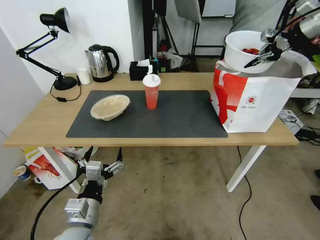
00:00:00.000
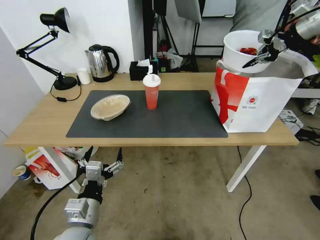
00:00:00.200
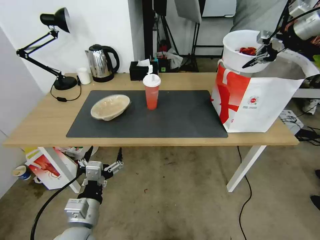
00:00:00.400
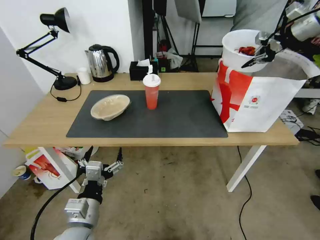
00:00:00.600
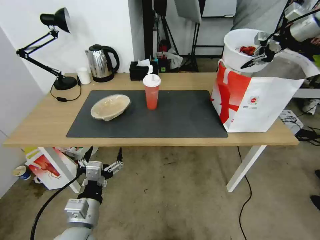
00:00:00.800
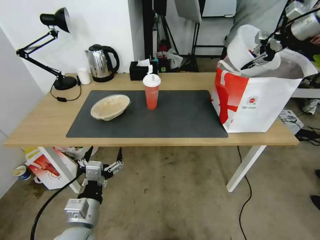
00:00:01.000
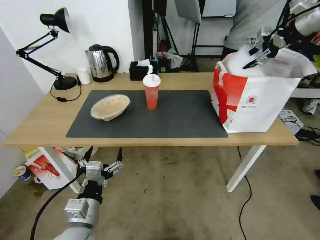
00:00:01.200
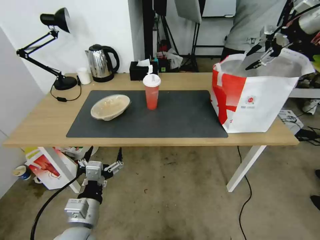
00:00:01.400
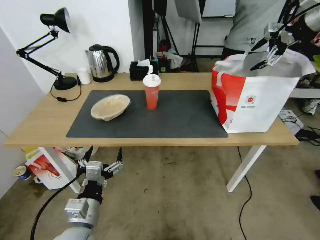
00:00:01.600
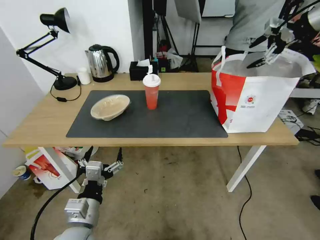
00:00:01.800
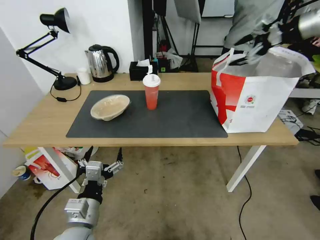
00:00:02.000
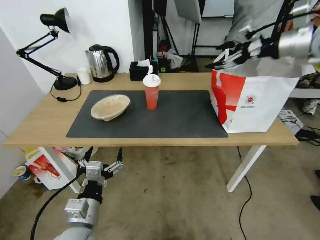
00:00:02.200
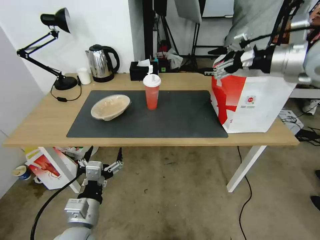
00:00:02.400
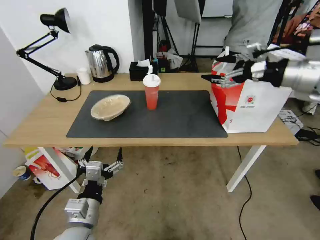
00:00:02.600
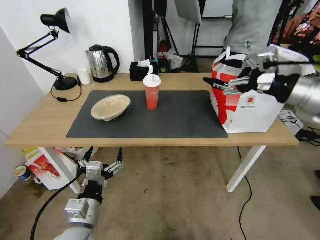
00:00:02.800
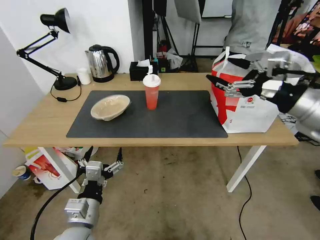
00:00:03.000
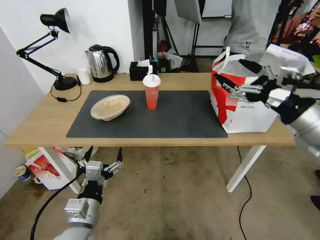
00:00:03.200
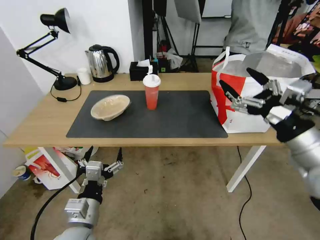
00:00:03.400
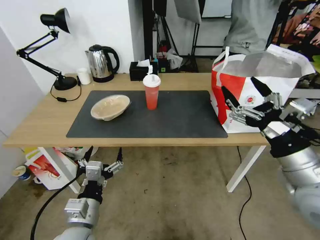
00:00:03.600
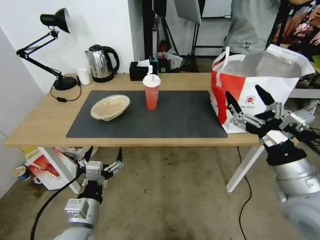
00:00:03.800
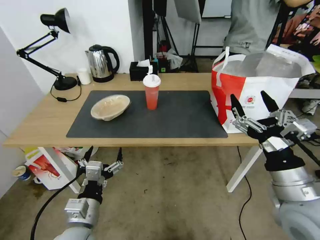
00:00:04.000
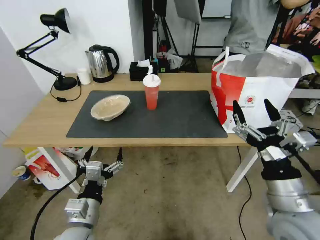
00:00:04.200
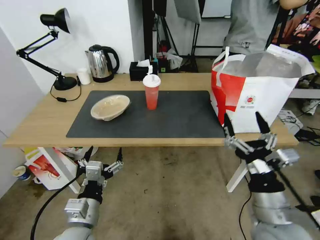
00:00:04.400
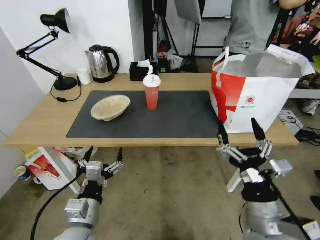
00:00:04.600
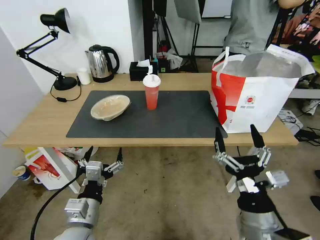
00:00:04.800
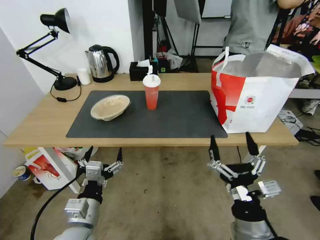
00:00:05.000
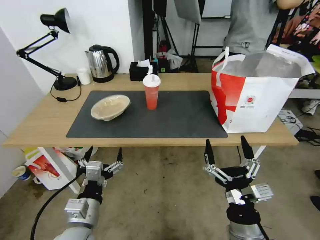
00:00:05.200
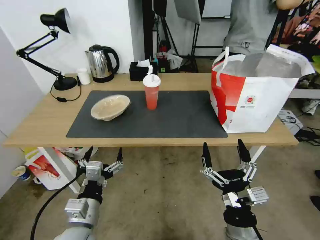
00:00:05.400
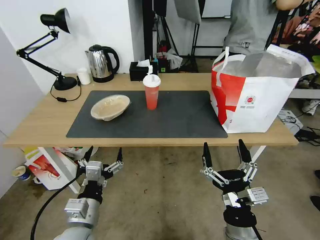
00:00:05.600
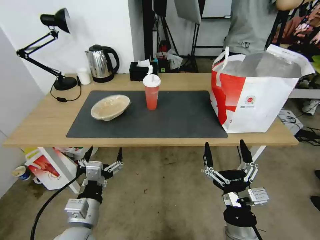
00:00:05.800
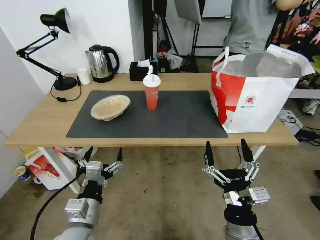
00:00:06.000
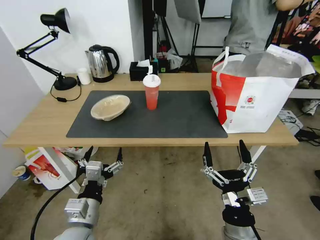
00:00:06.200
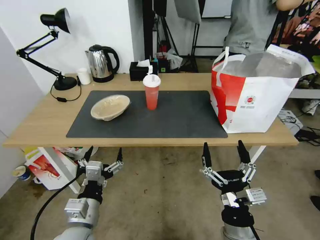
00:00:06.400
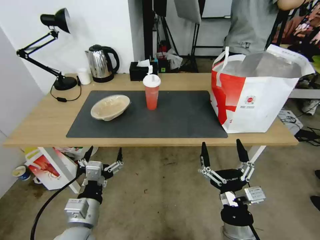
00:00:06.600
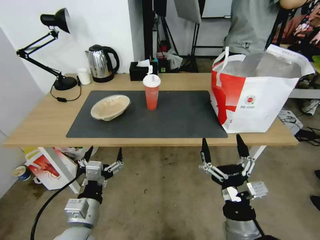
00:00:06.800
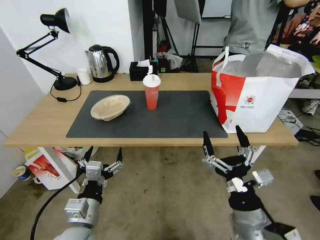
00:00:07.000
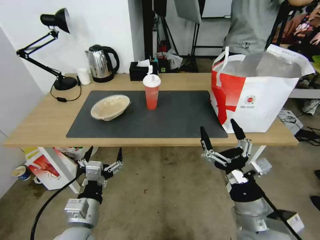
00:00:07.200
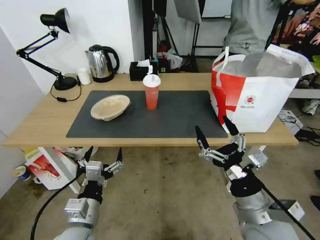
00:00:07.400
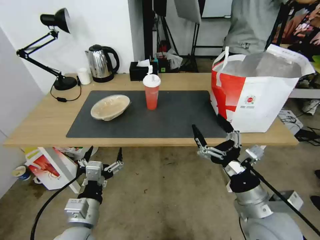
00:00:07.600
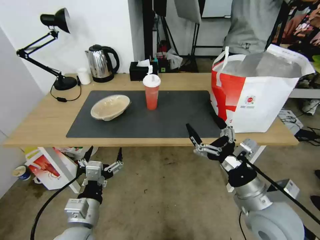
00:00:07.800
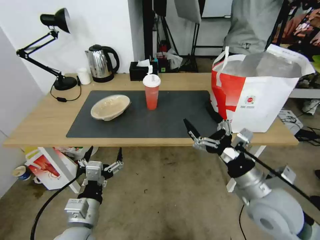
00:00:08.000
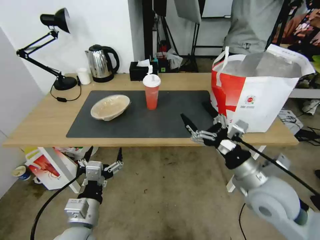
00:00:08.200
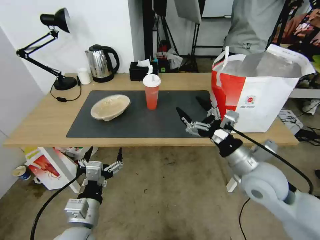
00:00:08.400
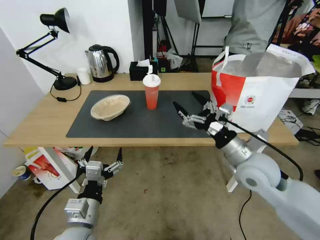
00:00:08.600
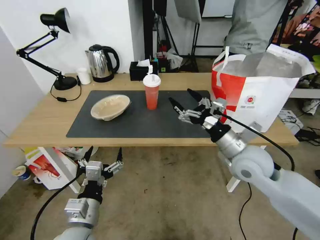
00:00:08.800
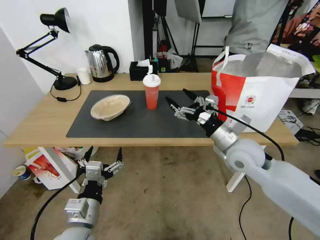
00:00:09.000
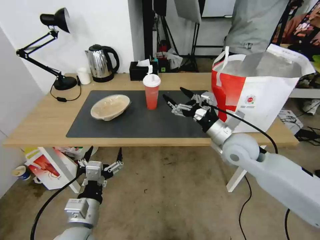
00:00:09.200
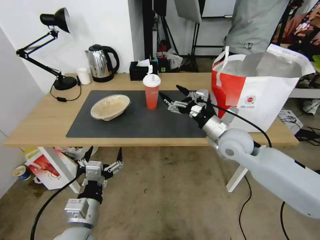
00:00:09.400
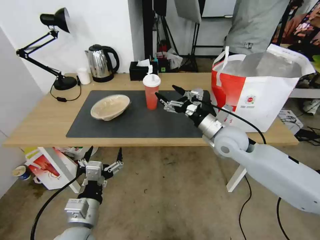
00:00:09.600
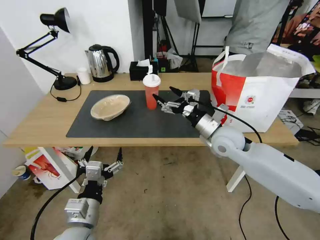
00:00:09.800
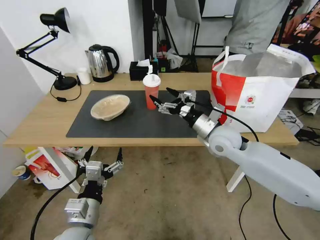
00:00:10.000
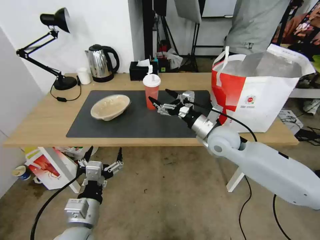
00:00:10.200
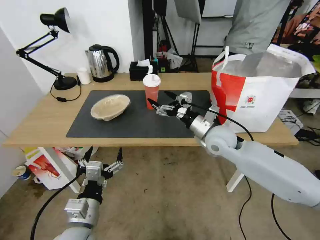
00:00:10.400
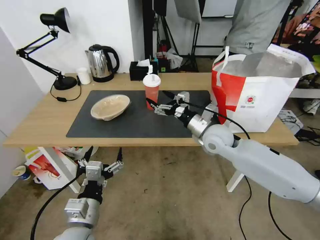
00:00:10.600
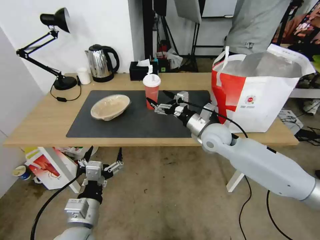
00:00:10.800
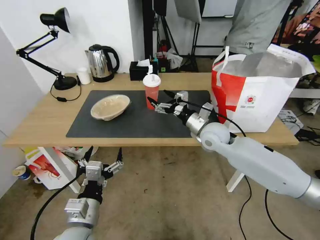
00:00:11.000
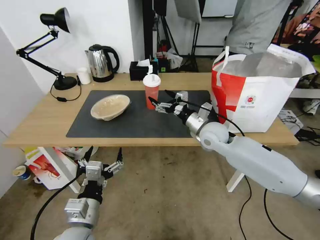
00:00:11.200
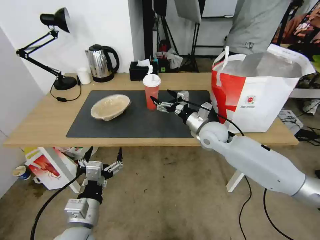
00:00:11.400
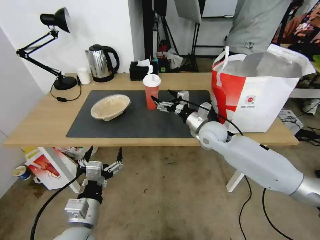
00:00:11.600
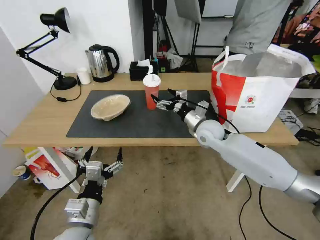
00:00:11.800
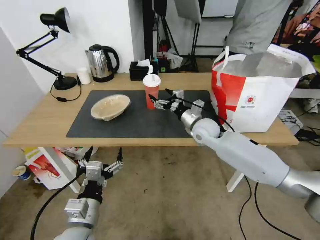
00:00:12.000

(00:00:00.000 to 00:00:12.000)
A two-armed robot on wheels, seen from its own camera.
Task of the whole recording: Pick up the trash from the table and place it into the takeout bag.
00:00:00.000 - 00:00:01.600: The right gripper opens.
00:00:01.600 - 00:00:03.000: The right gripper heads backward, downward and to the left, covering some 35 cm.
00:00:03.000 - 00:00:04.400: The right gripper goes roughly 25 cm downward, backward and to the left.
00:00:04.400 - 00:00:06.000: The right gripper goes about 10 cm downward and to the left.
00:00:06.000 - 00:00:07.600: The right gripper heads forward, upward and to the right, covering roughly 10 cm.
00:00:07.600 - 00:00:09.000: The right gripper heads forward, covering approximately 15 cm.
00:00:09.000 - 00:00:10.400: The right gripper shifts about 5 cm forward.
00:00:10.400 - 00:00:12.000: The right gripper travels forward by roughly 5 cm.

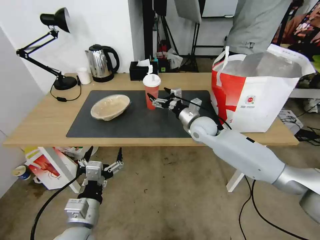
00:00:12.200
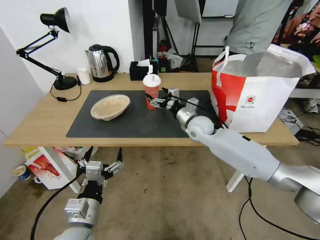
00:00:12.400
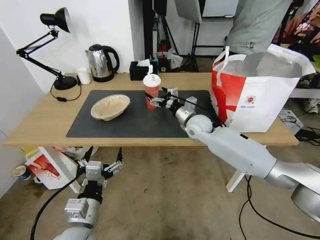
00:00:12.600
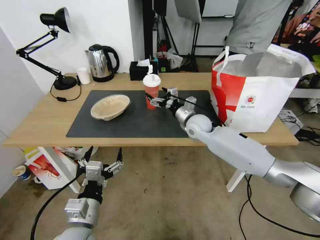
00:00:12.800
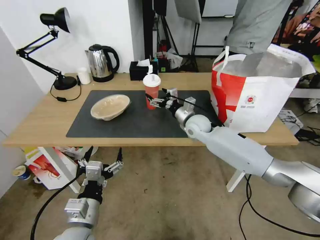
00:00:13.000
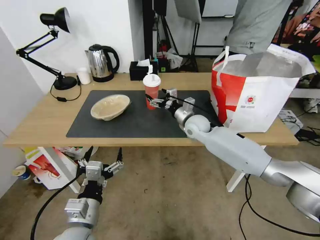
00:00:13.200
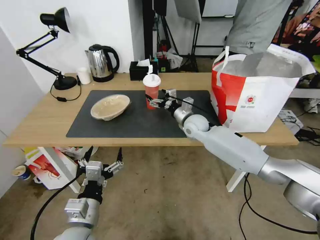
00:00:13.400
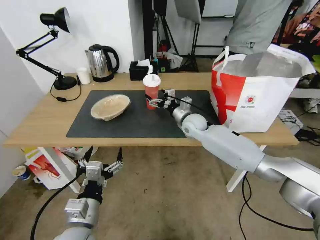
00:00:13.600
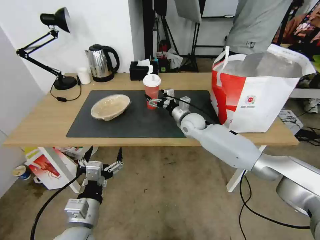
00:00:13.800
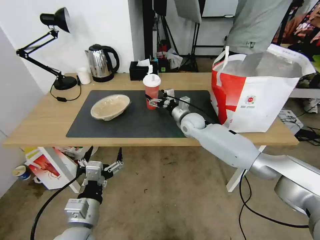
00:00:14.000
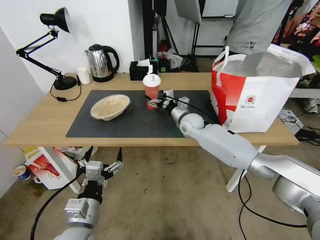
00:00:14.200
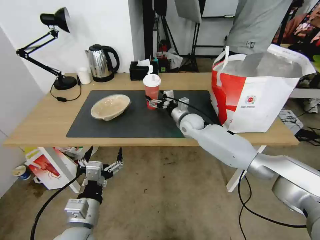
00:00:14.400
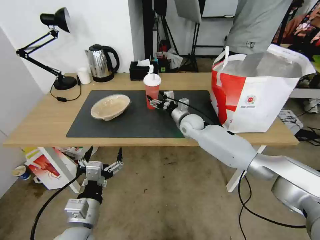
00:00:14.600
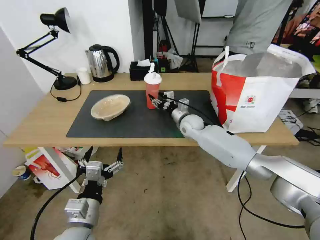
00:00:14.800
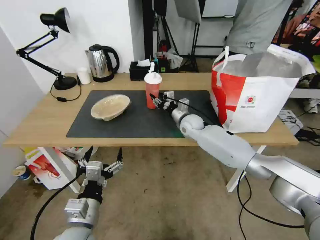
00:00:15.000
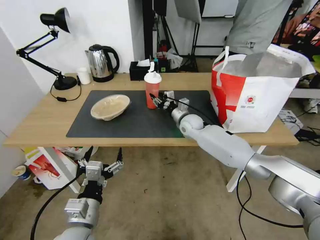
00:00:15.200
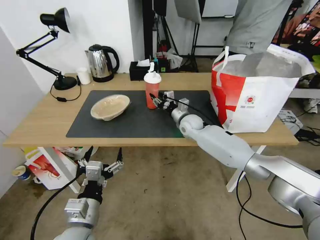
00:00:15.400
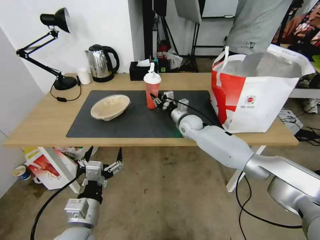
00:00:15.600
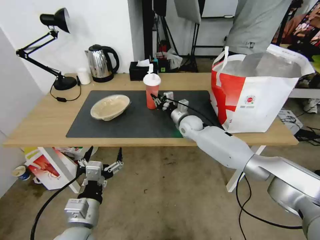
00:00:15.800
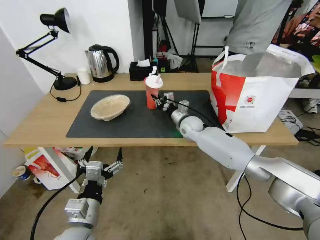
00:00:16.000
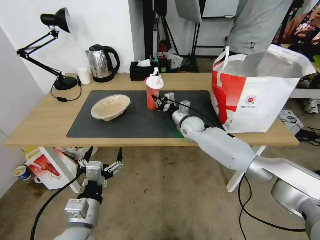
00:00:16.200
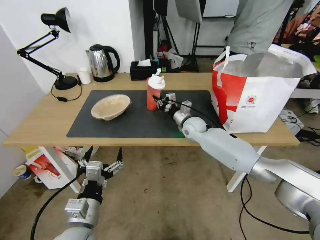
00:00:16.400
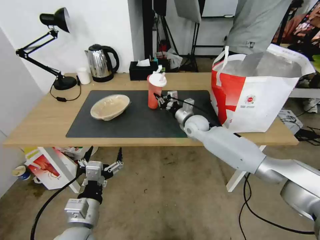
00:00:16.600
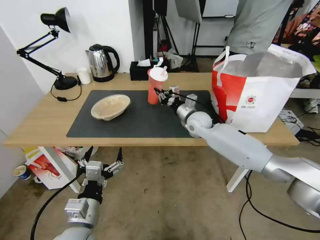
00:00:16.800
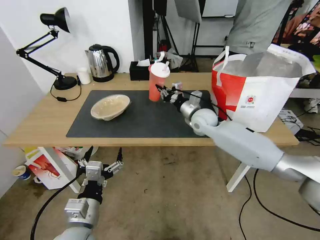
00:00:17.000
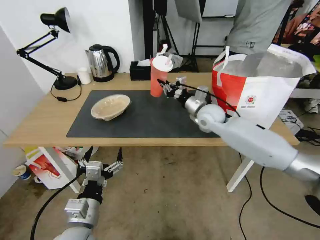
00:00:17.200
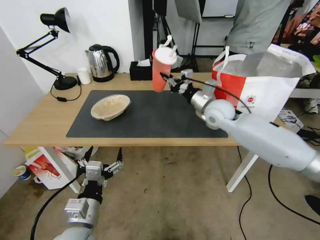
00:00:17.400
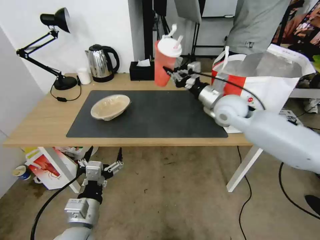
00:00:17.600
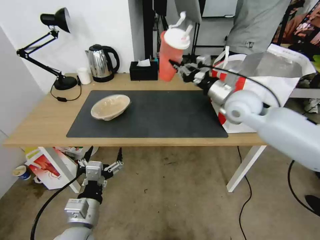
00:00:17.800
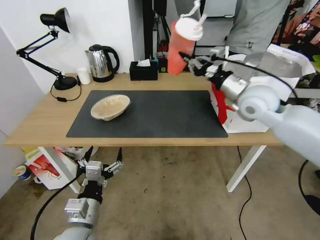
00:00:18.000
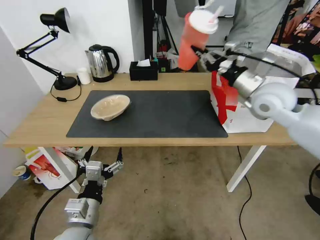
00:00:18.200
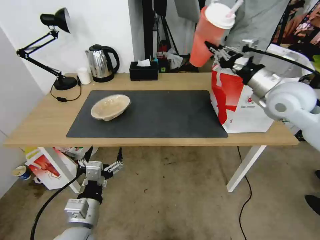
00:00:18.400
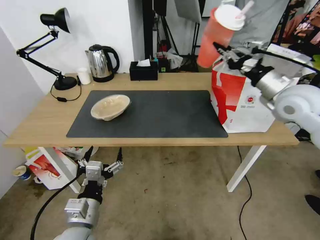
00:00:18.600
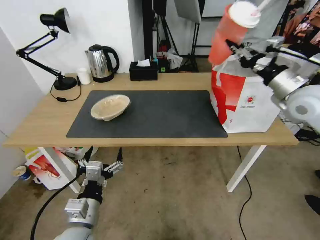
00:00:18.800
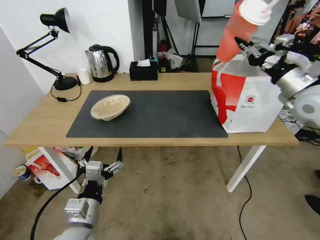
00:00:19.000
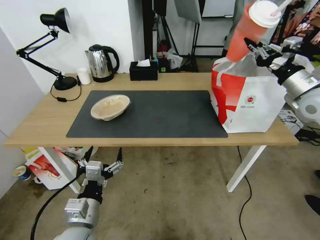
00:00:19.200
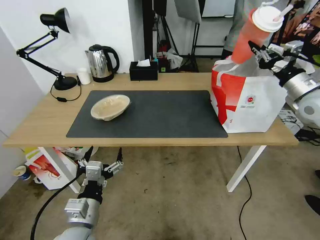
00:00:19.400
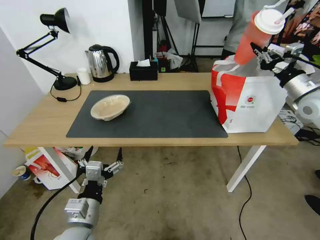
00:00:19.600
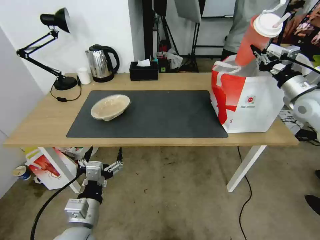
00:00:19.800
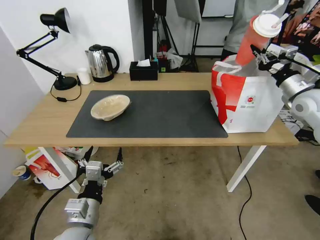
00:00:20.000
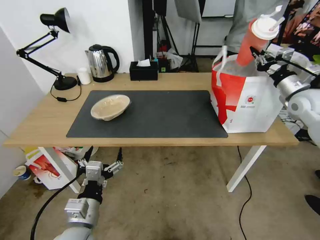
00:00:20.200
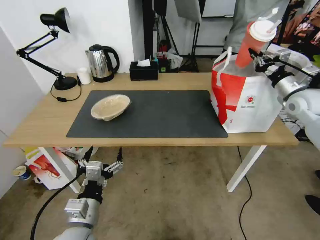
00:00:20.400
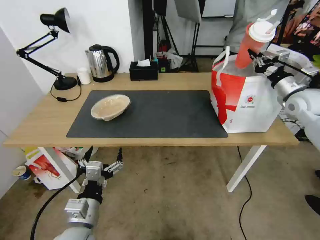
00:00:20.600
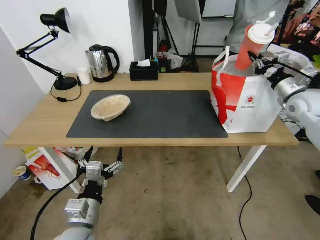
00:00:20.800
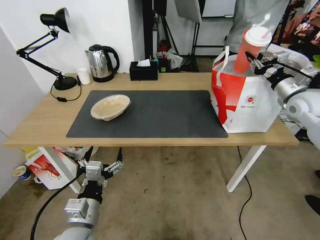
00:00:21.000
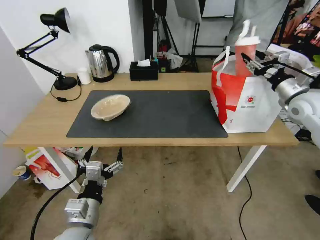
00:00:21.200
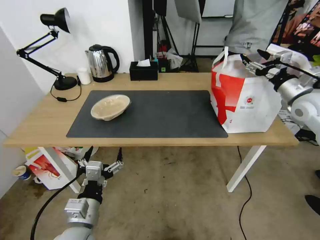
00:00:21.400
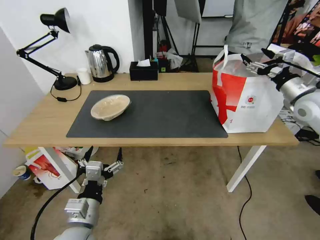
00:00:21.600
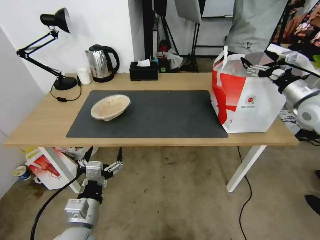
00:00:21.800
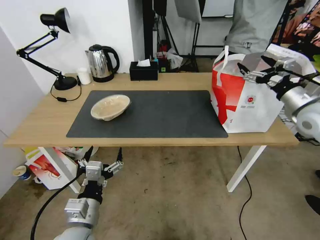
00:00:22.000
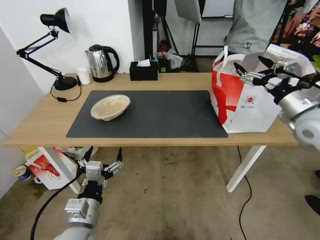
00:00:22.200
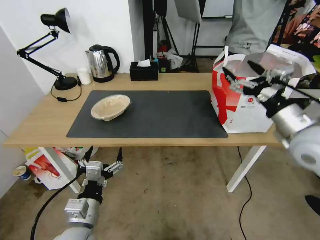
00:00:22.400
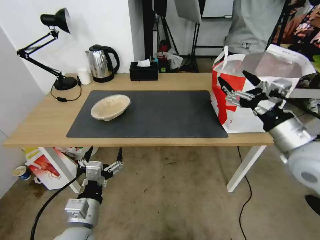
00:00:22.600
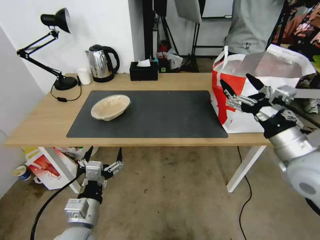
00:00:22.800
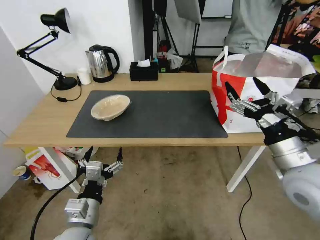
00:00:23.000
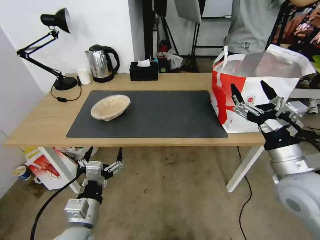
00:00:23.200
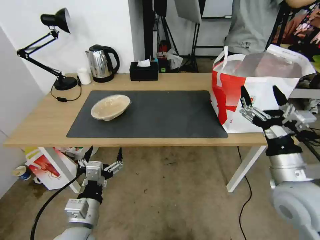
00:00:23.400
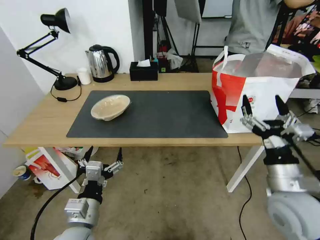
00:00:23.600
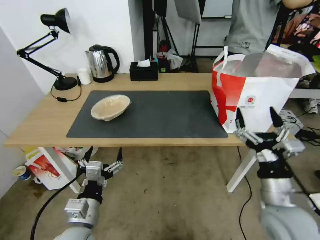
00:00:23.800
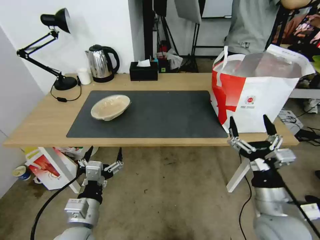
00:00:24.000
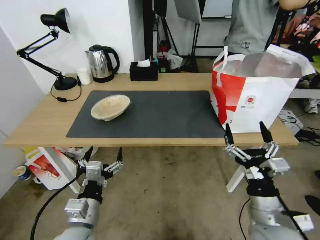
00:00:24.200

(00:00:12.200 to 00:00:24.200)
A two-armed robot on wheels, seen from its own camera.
Task of the whole recording: Pick up the trash from the table and place it into the takeout bag.
00:00:12.200 - 00:00:13.800: The right gripper shifts by about 5 cm.
00:00:13.800 - 00:00:15.200: The right gripper closes up.
00:00:15.200 - 00:00:16.600: The right gripper closes up.
00:00:16.600 - 00:00:18.200: The right gripper goes about 30 cm upward, to the right and backward.
00:00:18.200 - 00:00:19.800: The right gripper is displaced to the right by roughly 15 cm.
00:00:19.800 - 00:00:21.200: The right gripper opens.
00:00:21.200 - 00:00:22.600: The right gripper moves backward and to the left, roughly 25 cm, and opens.
00:00:22.600 - 00:00:24.200: The right gripper heads downward, backward and to the left, covering about 20 cm.
